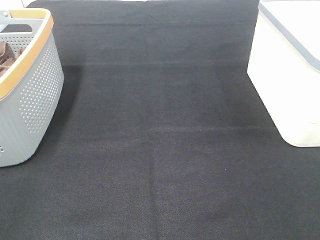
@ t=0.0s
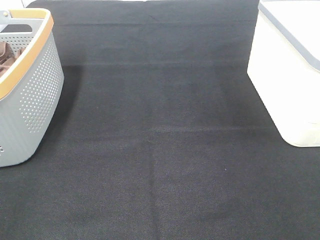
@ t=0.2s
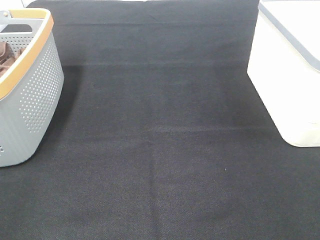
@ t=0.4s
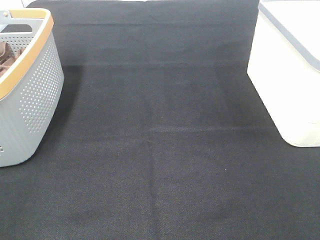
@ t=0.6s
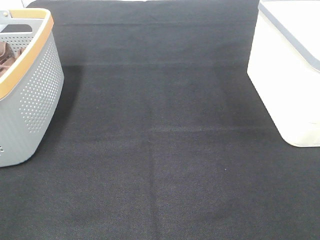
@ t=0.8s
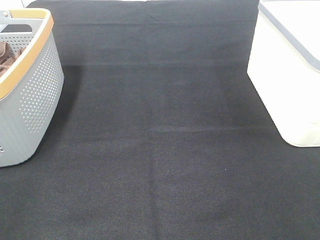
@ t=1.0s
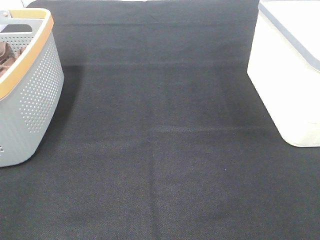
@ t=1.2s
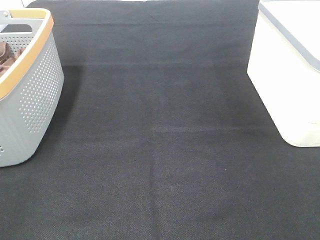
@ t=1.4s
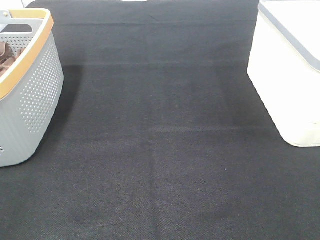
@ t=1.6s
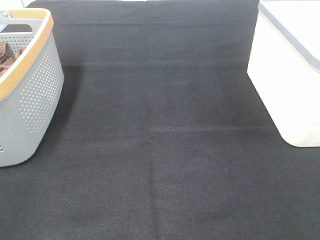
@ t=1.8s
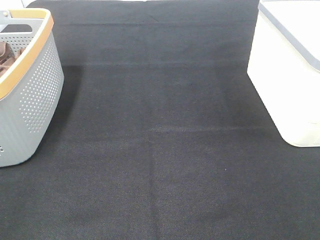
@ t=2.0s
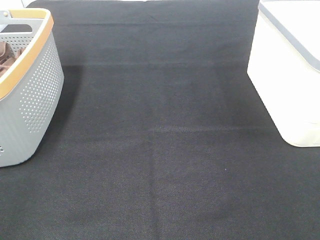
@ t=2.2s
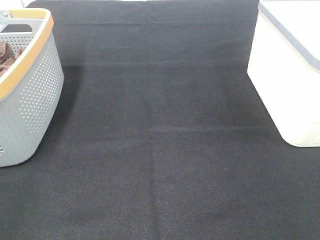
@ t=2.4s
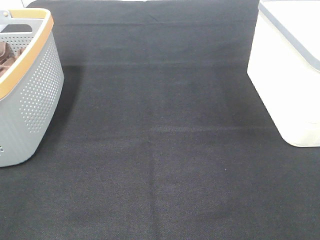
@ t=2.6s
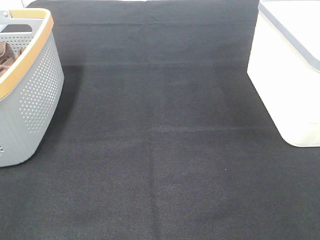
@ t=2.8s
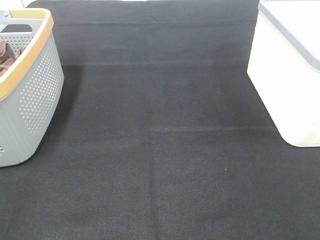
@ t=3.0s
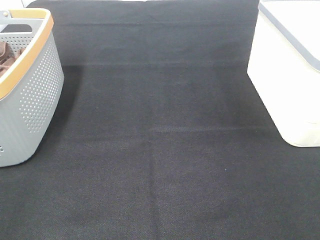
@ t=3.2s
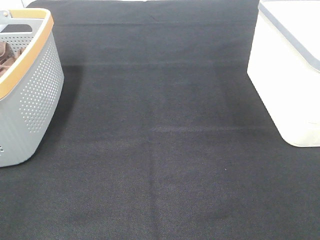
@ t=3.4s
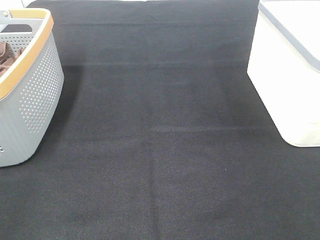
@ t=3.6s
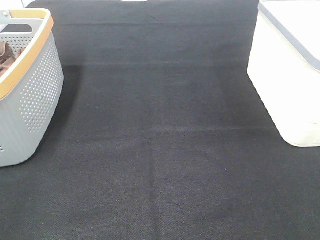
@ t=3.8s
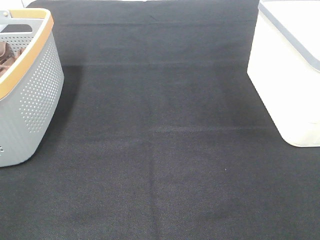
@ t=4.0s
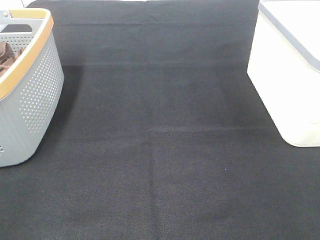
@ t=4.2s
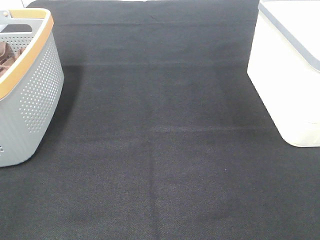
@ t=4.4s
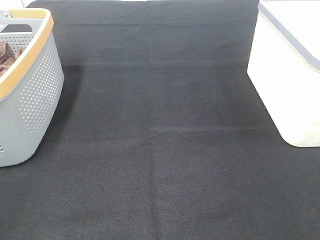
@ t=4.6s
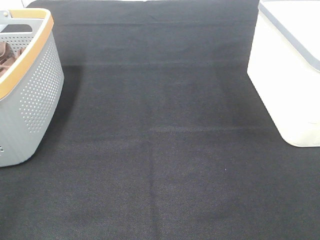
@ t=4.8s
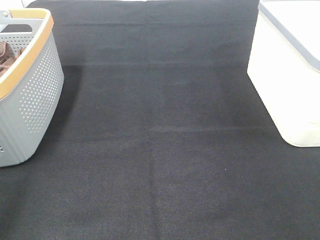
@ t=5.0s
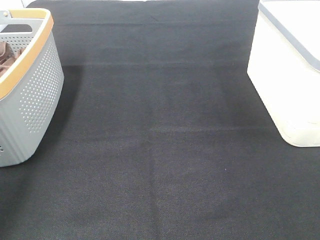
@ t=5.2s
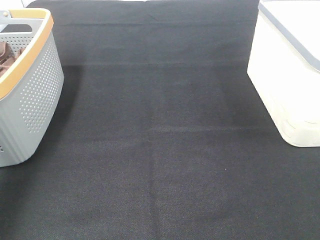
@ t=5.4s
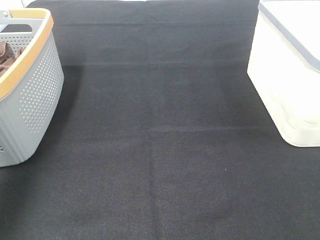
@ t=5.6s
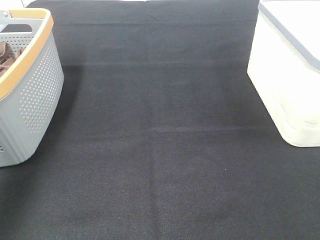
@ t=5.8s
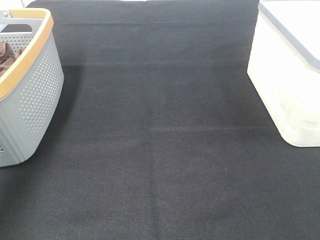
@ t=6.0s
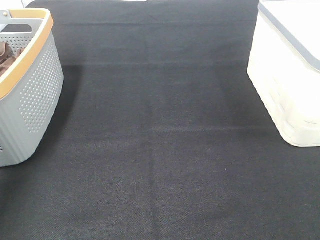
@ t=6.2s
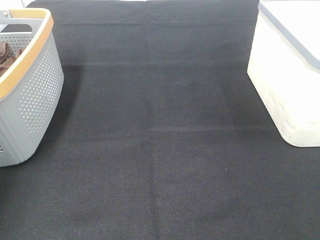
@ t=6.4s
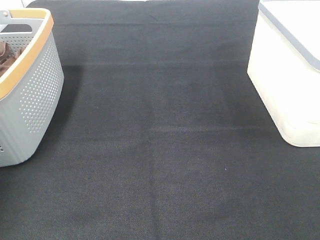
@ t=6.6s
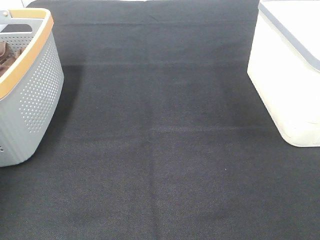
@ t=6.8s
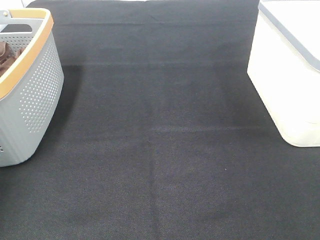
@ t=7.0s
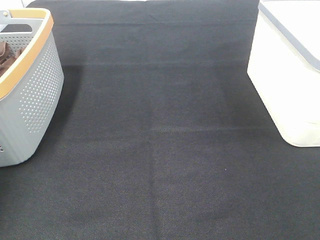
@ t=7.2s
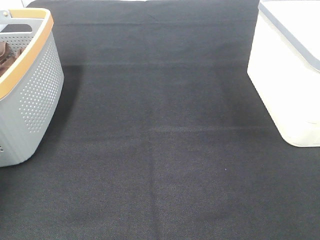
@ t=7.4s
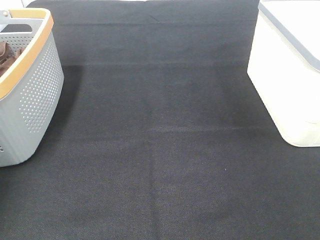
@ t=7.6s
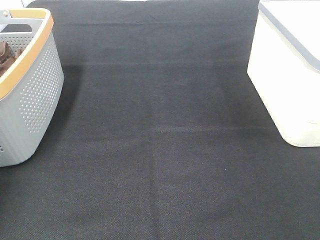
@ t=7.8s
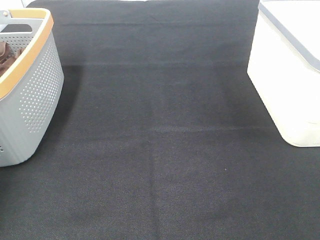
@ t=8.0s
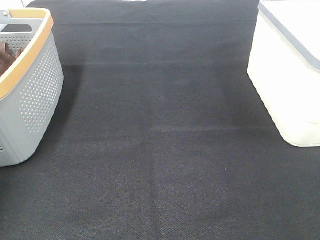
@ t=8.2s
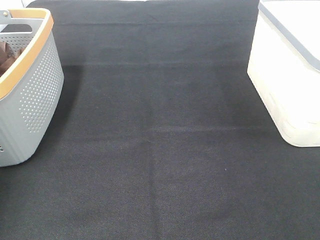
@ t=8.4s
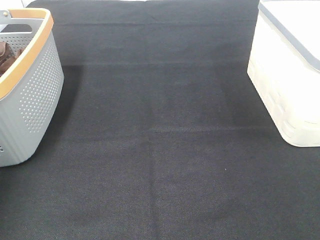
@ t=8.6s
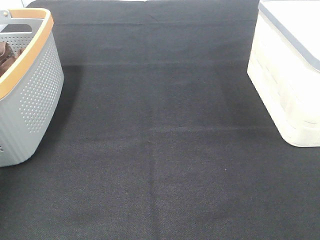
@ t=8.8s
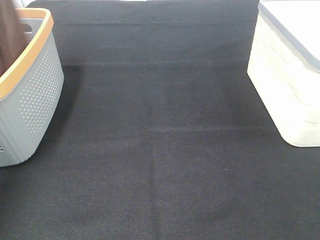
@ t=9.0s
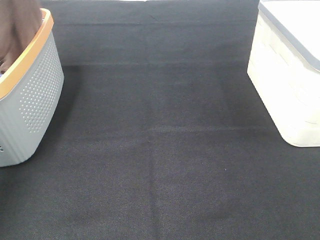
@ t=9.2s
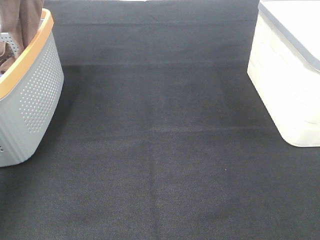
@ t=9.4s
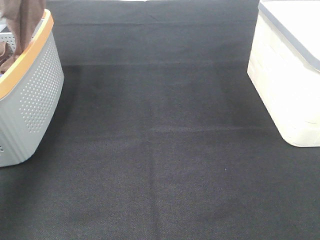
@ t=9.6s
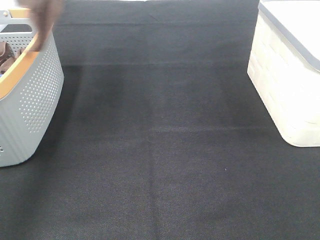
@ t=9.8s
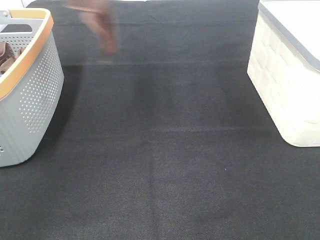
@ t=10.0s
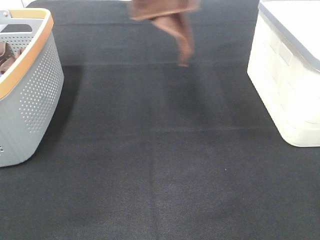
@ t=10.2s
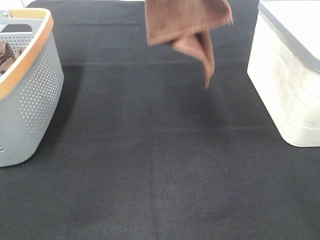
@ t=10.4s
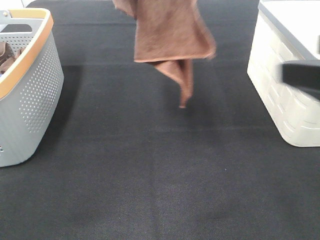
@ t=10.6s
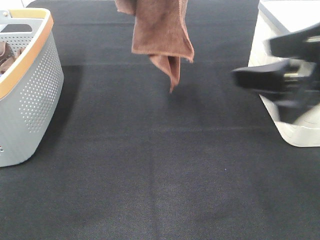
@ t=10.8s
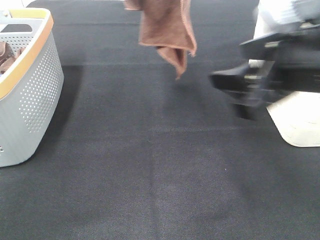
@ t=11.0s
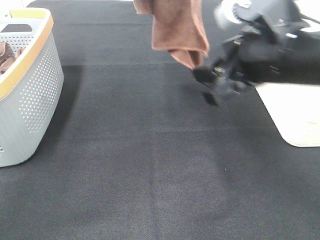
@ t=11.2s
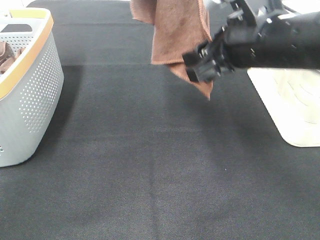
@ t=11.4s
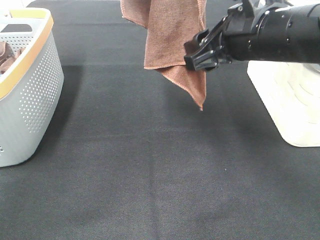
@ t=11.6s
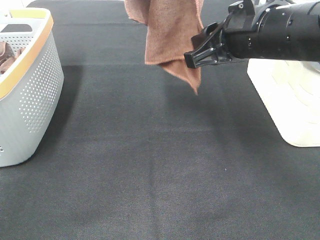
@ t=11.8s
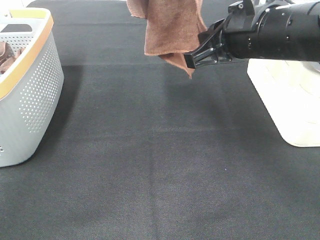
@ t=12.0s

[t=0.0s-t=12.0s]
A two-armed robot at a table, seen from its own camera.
Task of the whole recording: Remove the towel and place it.
Step, t=8.4s to t=12.0s: Right hand: grab a corner of the brown towel and straighten it.
t=0.0s to t=4.4s: Both grippers stay about where they are.
t=4.4s to t=6.0s: The left gripper heads forward, covering about 35 cm.
t=6.0s to t=7.6s: The left gripper goes roughly 15 cm downward, forward and to the left, and closes up.
t=7.6s to t=9.0s: The left gripper moves upward, roughly 25 cm.
t=9.0s to t=10.4s: The right gripper moves forward, some 10 cm; the left gripper heads to the right, covering about 25 cm.
t=10.4s to t=12.0s: The right gripper is displaced forward and to the left by some 20 cm, and closes.

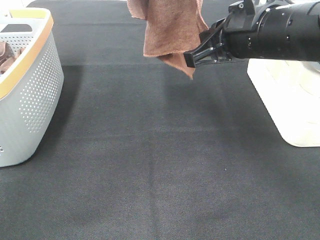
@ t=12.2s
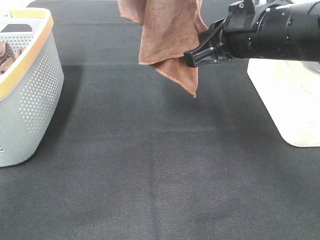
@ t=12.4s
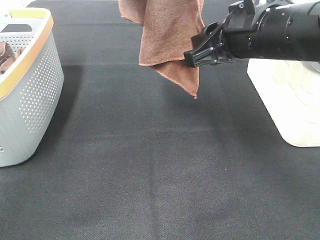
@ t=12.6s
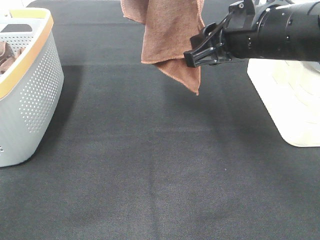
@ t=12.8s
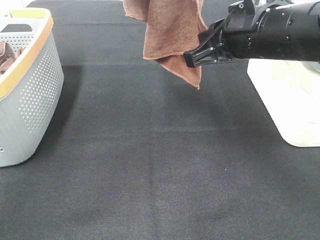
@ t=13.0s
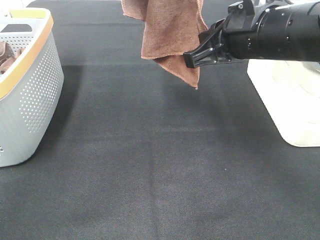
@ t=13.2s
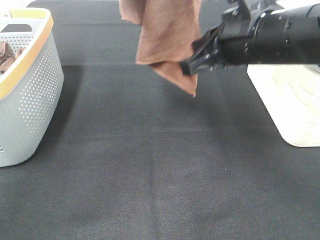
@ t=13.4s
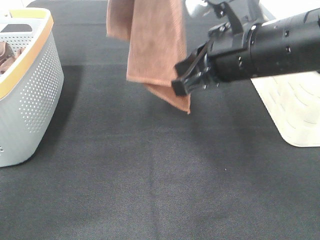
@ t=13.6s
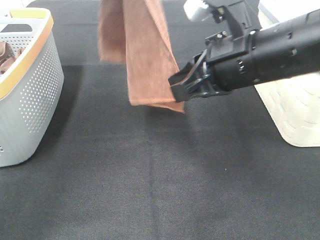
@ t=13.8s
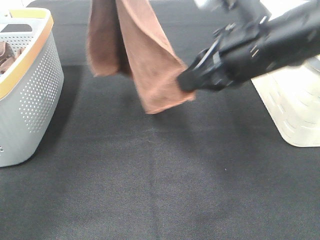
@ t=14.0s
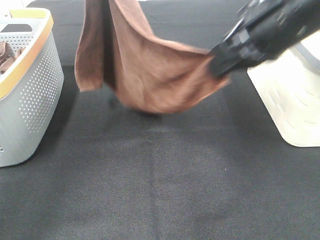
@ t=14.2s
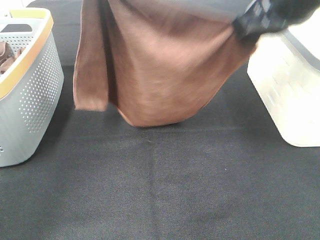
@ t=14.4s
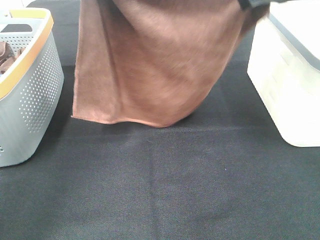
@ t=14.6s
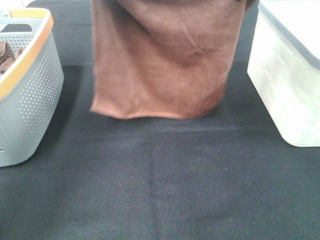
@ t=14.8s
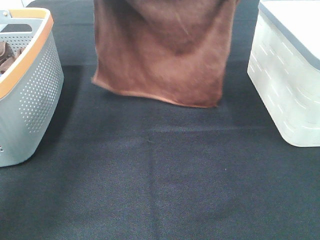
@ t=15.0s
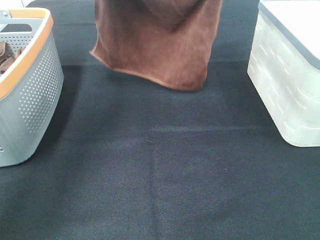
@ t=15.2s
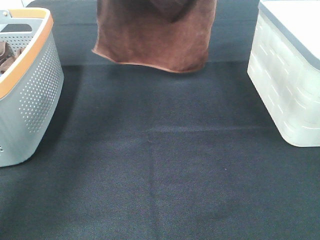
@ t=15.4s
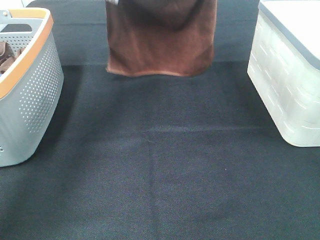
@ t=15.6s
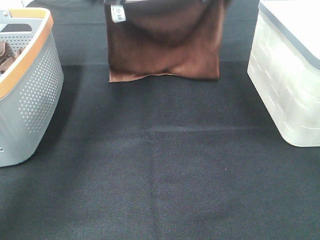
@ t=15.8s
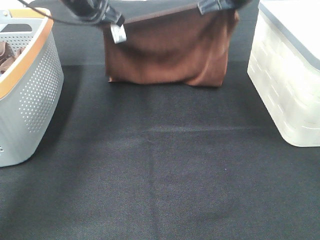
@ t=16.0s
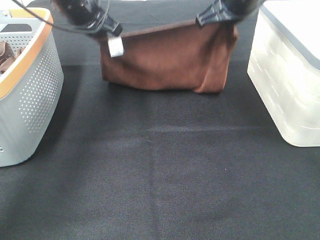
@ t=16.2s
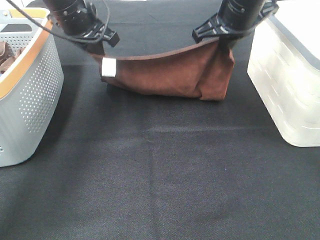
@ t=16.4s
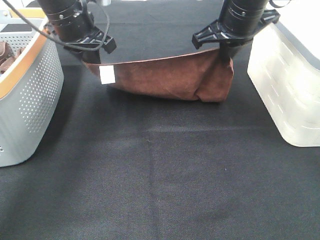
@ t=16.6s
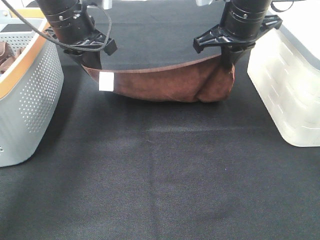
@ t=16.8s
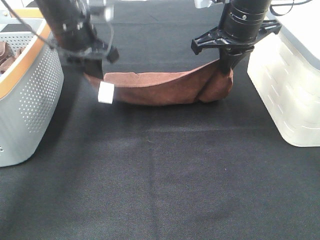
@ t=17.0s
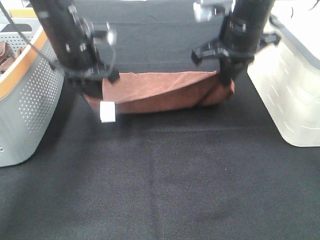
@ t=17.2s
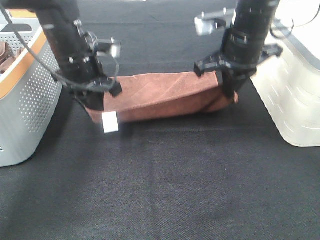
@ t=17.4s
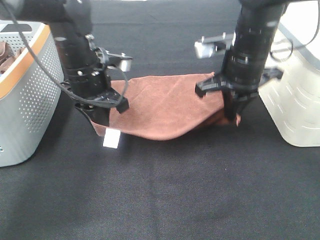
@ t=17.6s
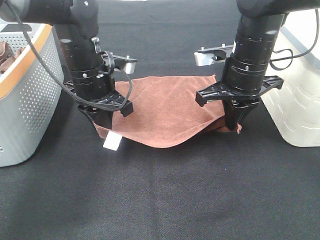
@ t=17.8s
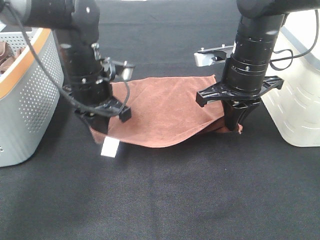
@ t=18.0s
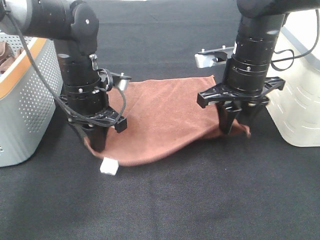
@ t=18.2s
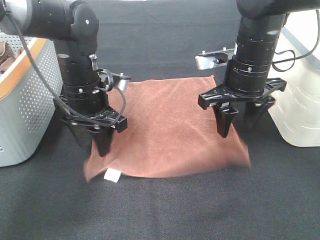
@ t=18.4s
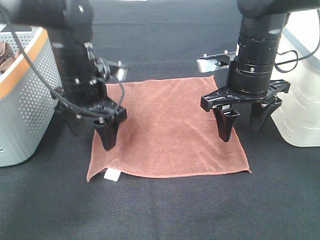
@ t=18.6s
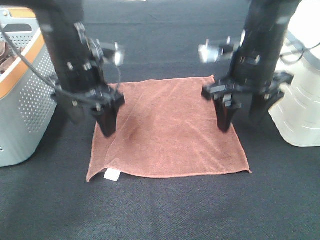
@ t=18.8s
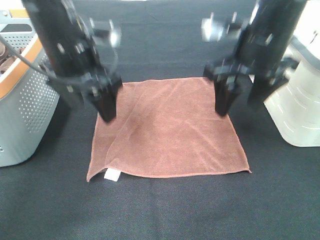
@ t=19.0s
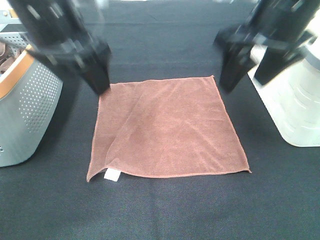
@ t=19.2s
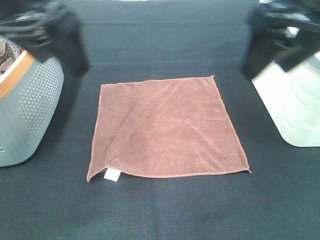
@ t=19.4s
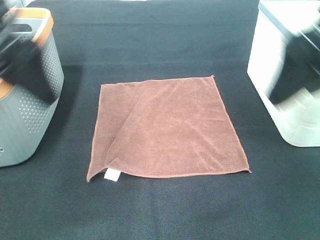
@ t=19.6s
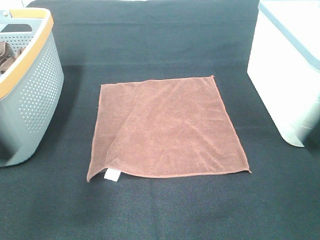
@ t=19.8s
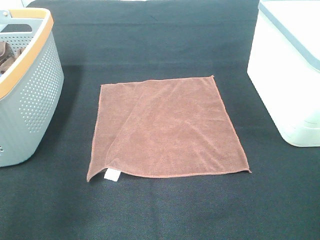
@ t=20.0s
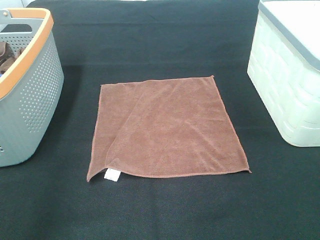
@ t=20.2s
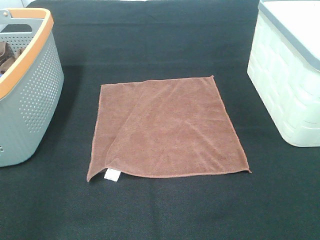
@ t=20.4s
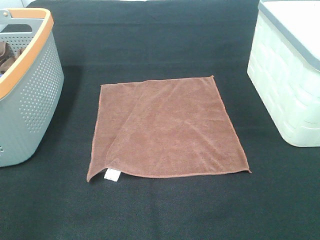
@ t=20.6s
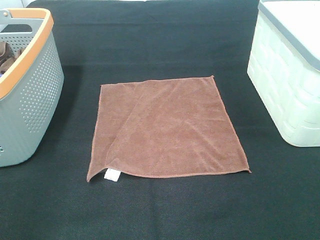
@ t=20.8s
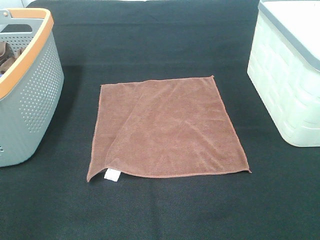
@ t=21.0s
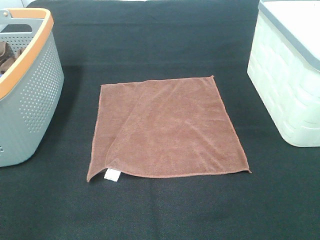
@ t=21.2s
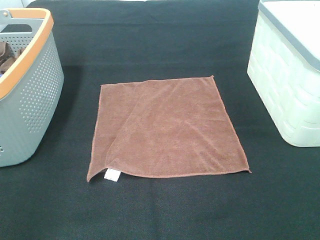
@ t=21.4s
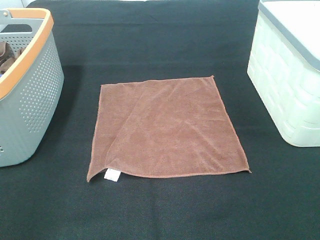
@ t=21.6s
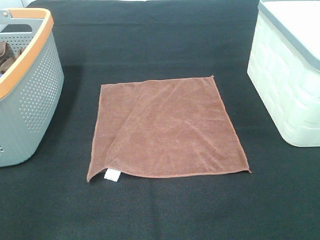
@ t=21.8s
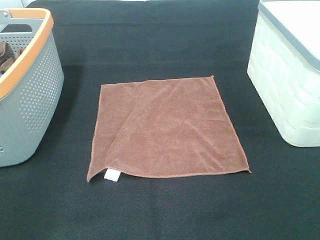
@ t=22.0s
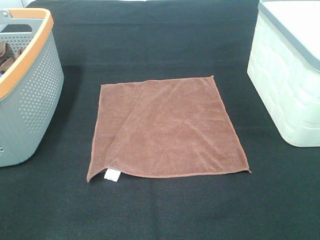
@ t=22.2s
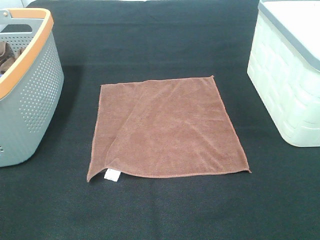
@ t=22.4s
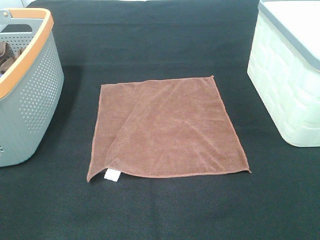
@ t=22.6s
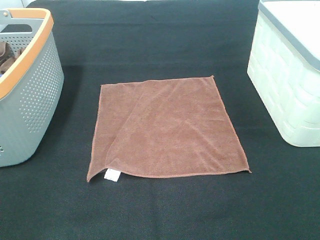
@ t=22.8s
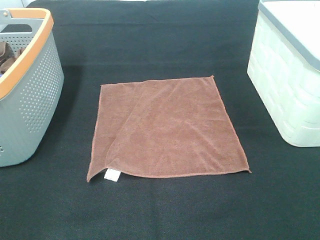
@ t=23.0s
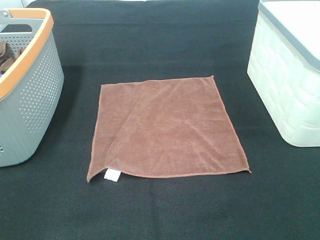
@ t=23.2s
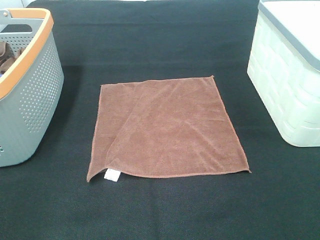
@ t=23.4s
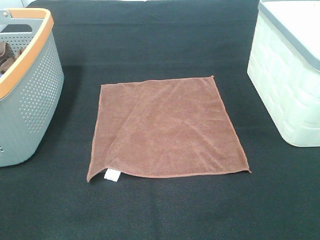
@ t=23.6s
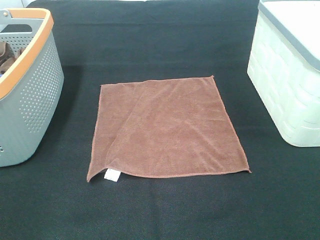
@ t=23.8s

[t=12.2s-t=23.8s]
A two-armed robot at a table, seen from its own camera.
Task of the whole recording: Remove the towel and place it.
Step, t=12.2s to t=14.6s: Left hand: spread the brown towel flat on the table.
Step, t=12.2s to t=14.6s: Right hand: spread the brown towel flat on the table.
t=12.2s to t=13.6s: The right gripper opens and closes again.
t=13.6s to t=15.0s: The left gripper moves downward and forward, some 15 cm, while the right gripper shifts approximately 15 cm forward and upward.
t=15.0s to t=16.6s: Both grippers move downward, approximately 10 cm.
t=16.6s to t=18.0s: The grippers both shift downward and backward by some 10 cm.
t=18.0s to t=19.4s: The two grippers go approximately 20 cm upward and backward. The left gripper opens; the right gripper opens.
t=19.4s to t=21.0s: The right gripper moves backward and to the right, approximately 25 cm. Meanwhile the left gripper shifts about 25 cm backward and to the left.
